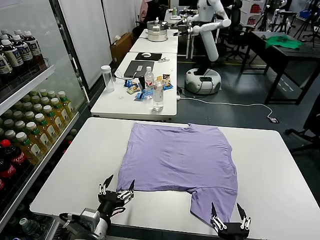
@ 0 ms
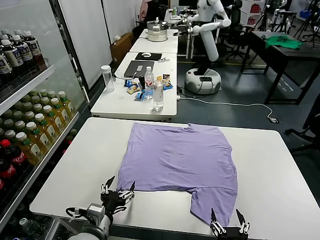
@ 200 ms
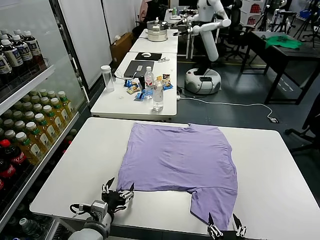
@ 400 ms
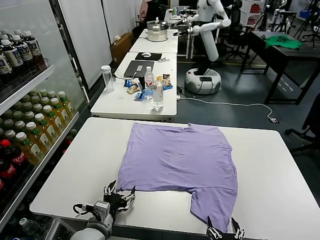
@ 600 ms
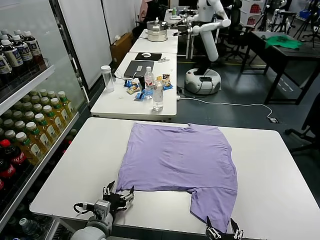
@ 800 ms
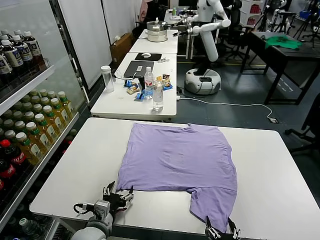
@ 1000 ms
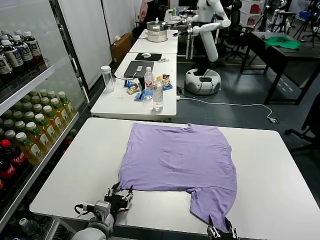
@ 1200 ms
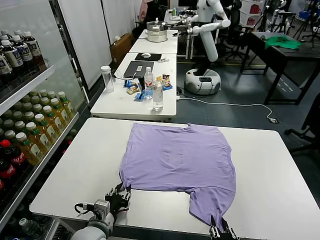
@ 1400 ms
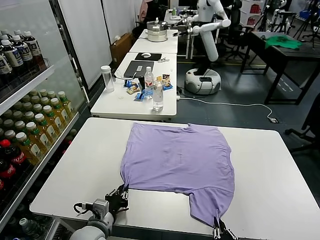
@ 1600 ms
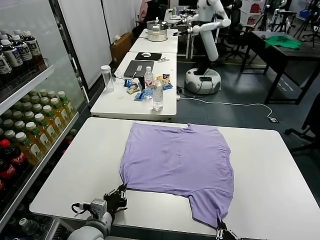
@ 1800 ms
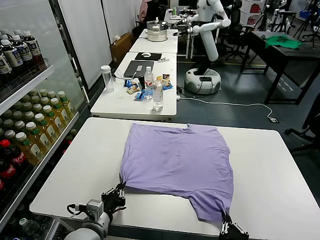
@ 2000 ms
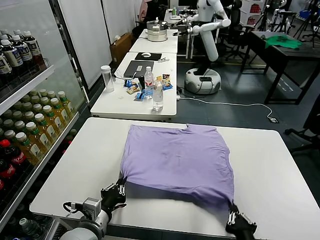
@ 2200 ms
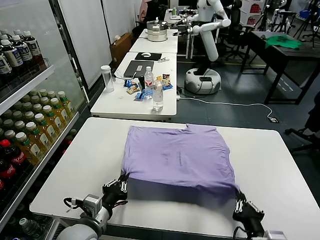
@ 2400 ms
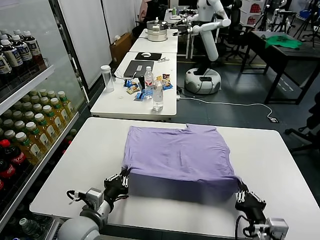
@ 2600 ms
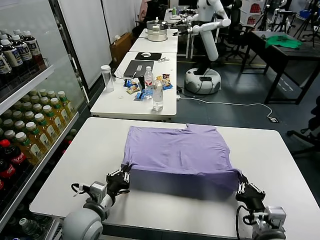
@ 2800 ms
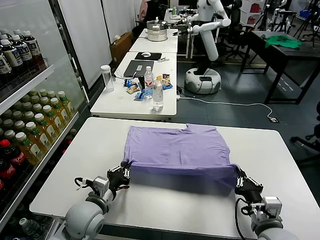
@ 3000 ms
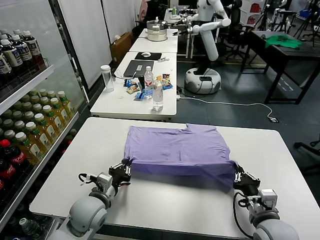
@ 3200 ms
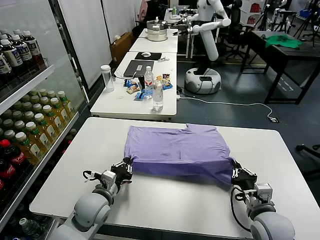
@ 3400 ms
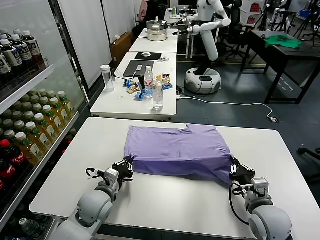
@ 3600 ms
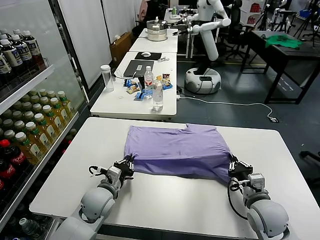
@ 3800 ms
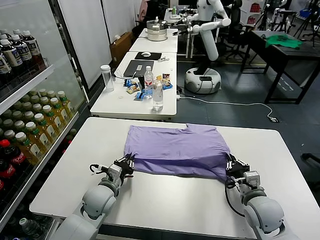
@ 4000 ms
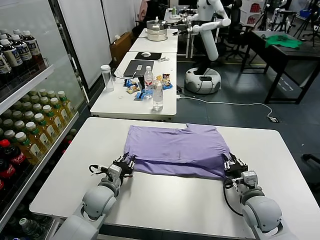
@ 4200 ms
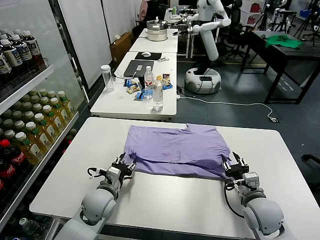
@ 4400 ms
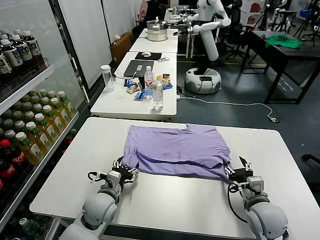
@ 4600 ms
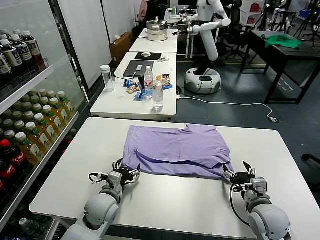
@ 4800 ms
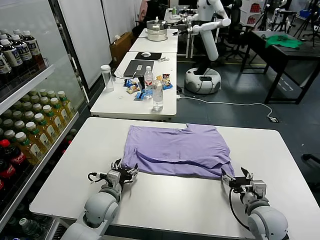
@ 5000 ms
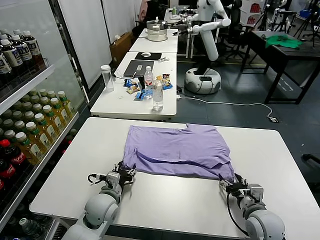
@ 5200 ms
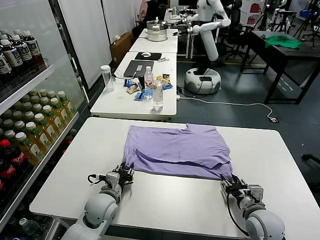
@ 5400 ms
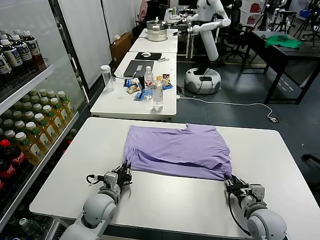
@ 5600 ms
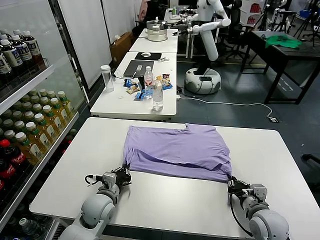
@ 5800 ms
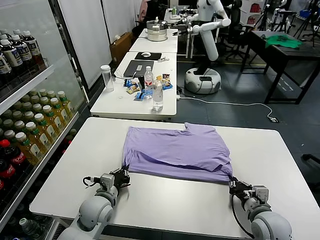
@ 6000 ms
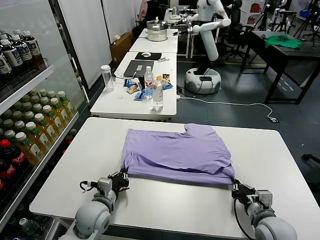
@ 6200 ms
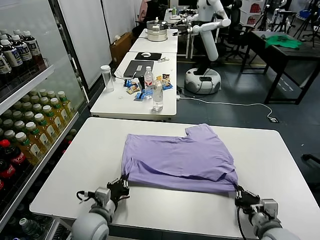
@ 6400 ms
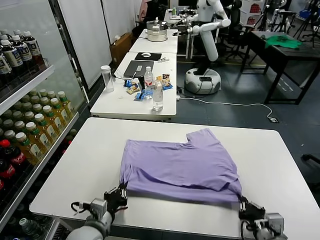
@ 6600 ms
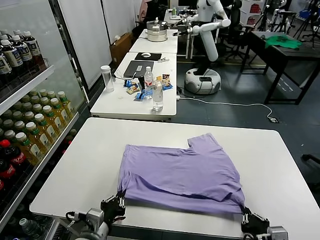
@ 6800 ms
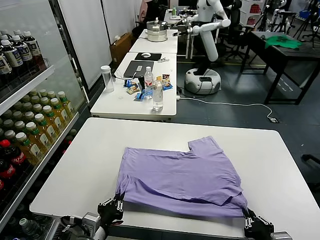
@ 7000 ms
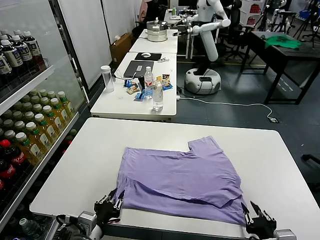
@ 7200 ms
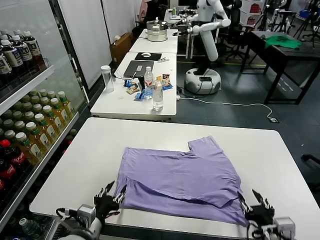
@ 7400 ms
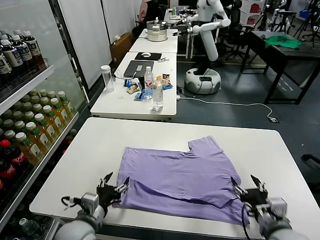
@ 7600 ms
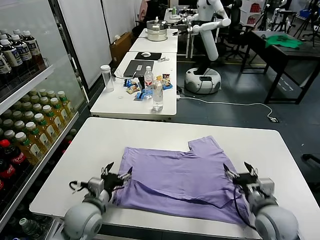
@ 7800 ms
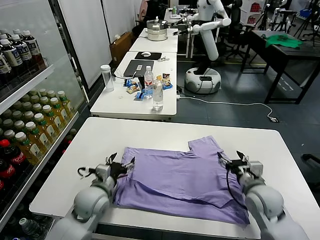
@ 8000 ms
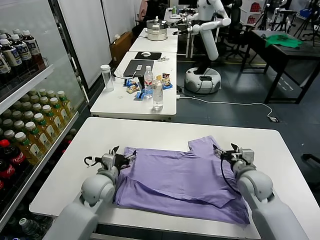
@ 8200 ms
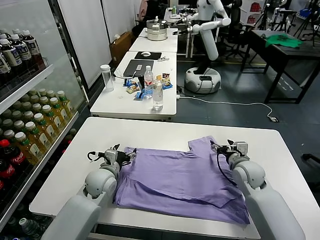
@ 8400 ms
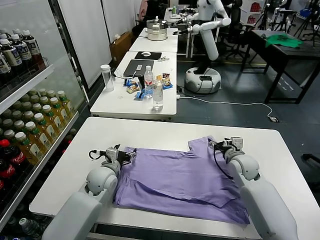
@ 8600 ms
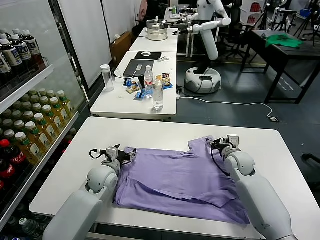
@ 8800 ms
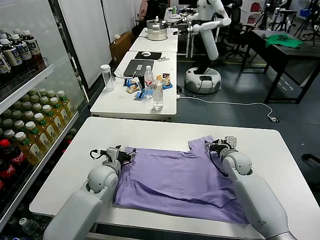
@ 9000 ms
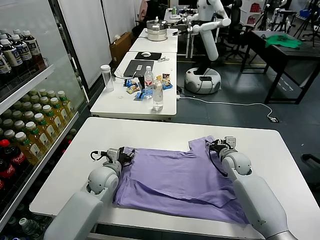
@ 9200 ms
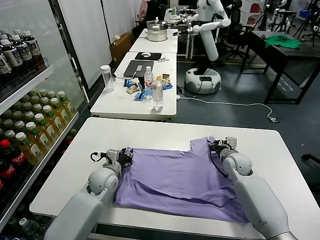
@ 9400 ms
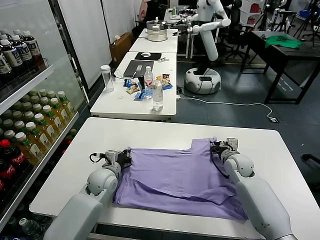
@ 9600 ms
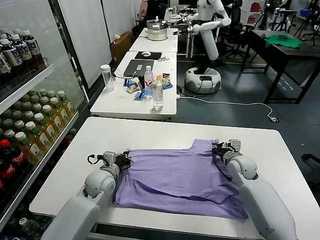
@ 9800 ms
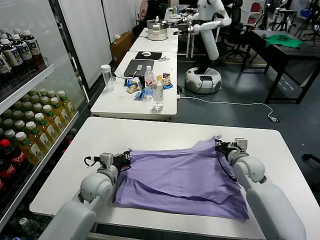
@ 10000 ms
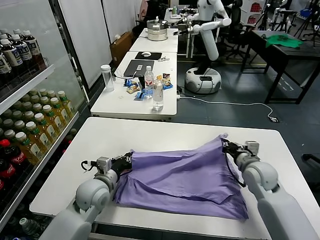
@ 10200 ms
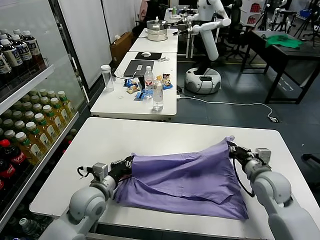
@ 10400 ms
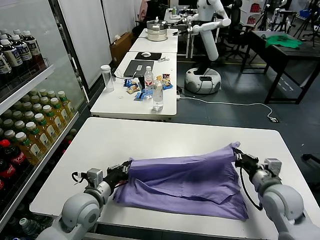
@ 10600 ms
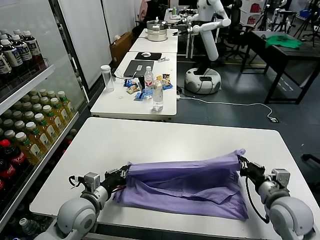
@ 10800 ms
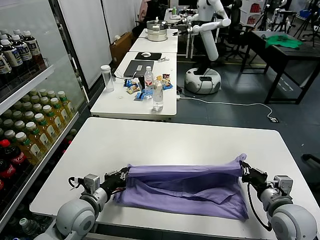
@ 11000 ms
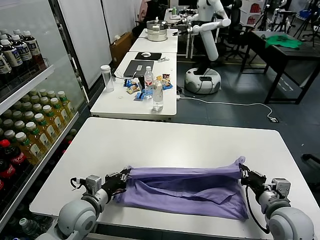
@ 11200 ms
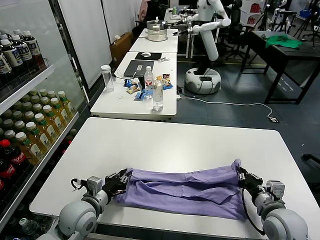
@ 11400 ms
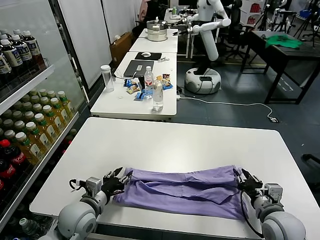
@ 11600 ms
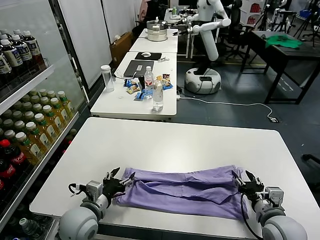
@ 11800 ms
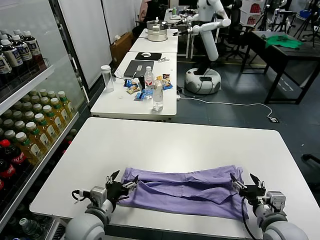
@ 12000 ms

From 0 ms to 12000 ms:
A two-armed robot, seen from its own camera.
Task of the whole recording: fold and organize the clothes.
Step, from 0 ms to 1600 ms: use both grippers simultaneously to clamp the lower edge of the clothing fabric.
Step, from 1800 ms to 4600 ms: use both grippers to drag the lower edge of the fabric forward and fold it over the upper edge.
Step, from 4800 ms to 7400 ms: Drag the clothes downward with both gripper.
Step, from 7600 ms to 9400 ms: use both grippers simultaneously to clamp the upper edge of the clothing fabric.
Step, from 9600 ms to 11800 ms: use both grippers to drag the upper edge of the fabric backward and fold it over the lower edge.
From 1600 ms to 3000 ms: The left gripper is displaced forward by approximately 5 cm, while the right gripper heads forward and to the right, covering approximately 15 cm.
From 3000 ms to 4400 ms: The right gripper shifts some 5 cm forward, and opens its fingers, while the left gripper moves approximately 5 cm, and opens its fingers.
From 4400 ms to 6000 ms: The right gripper closes, while the left gripper closes up.
From 6000 ms to 7600 ms: The right gripper reaches approximately 15 cm backward, then returns, and opens up, while the left gripper travels backward by approximately 10 cm, and opens.
From 7600 ms to 9000 ms: The grippers both shift forward by approximately 20 cm.
From 9000 ms to 10400 ms: The right gripper moves backward and upward, about 15 cm, and closes up, while the left gripper goes about 10 cm backward, and closes its fingers.
From 10400 ms to 12000 ms: The right gripper shifts approximately 10 cm backward, and opens up, while the left gripper travels backward by roughly 5 cm, and opens.

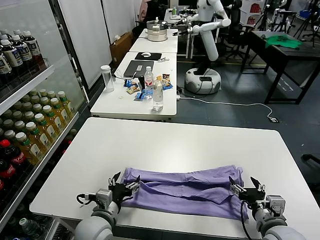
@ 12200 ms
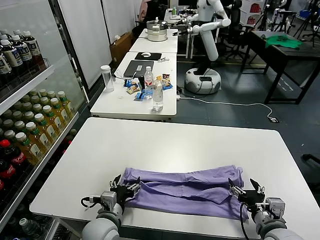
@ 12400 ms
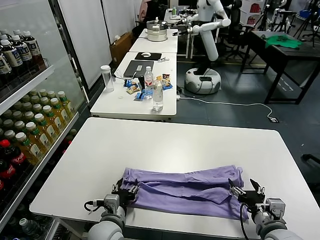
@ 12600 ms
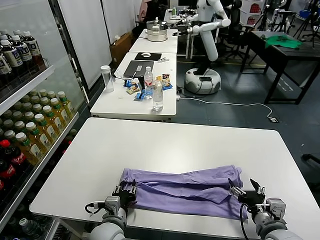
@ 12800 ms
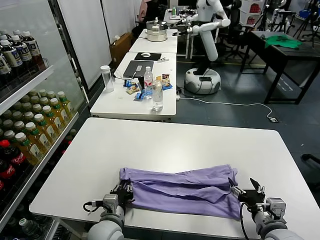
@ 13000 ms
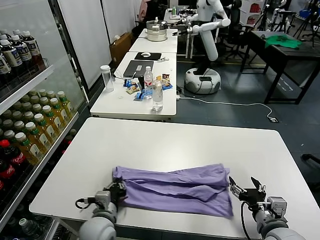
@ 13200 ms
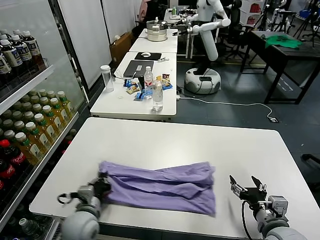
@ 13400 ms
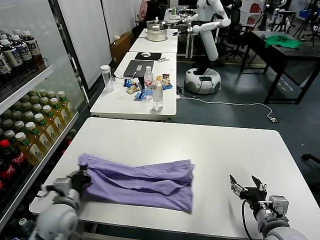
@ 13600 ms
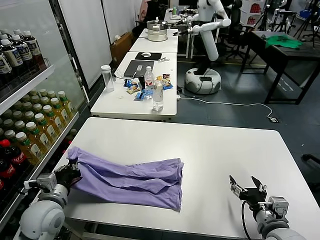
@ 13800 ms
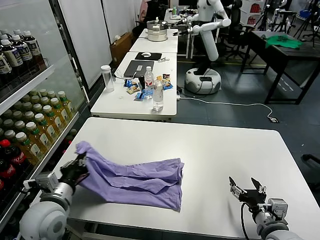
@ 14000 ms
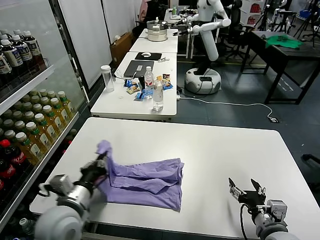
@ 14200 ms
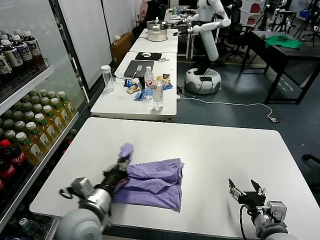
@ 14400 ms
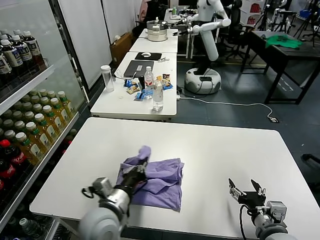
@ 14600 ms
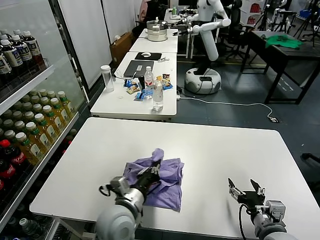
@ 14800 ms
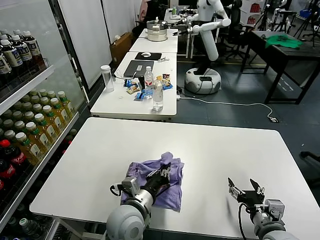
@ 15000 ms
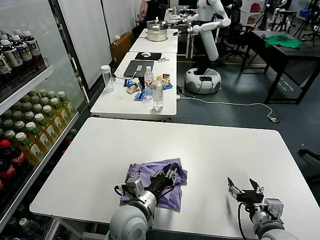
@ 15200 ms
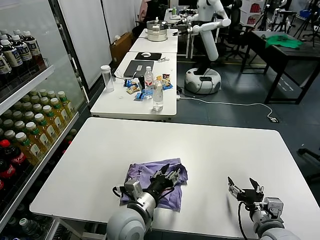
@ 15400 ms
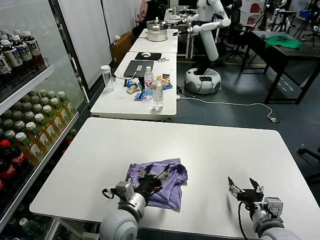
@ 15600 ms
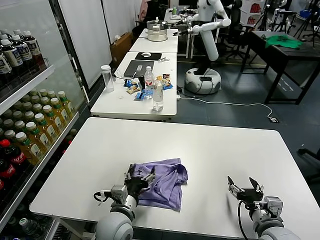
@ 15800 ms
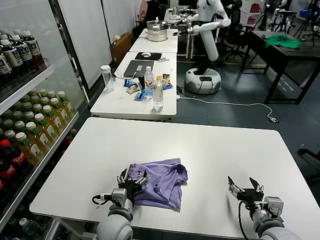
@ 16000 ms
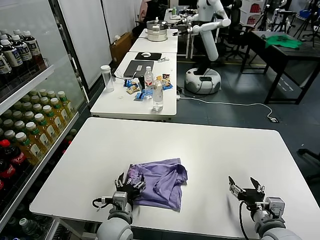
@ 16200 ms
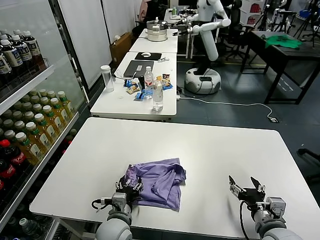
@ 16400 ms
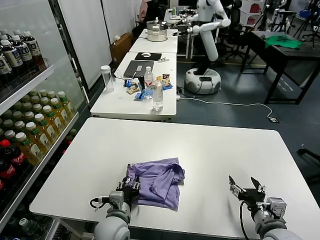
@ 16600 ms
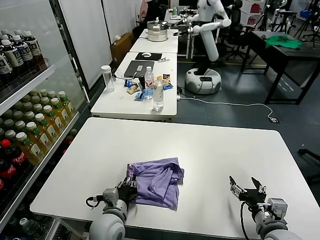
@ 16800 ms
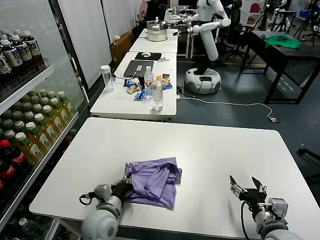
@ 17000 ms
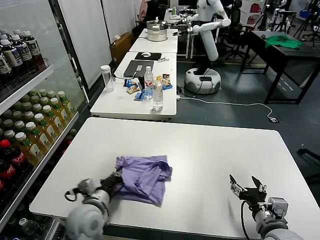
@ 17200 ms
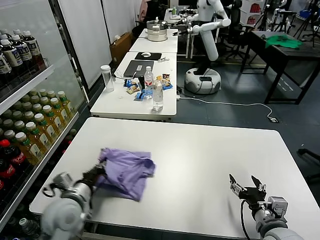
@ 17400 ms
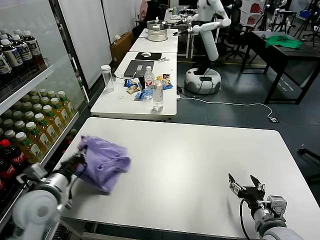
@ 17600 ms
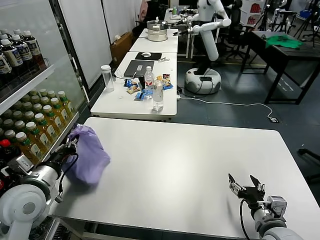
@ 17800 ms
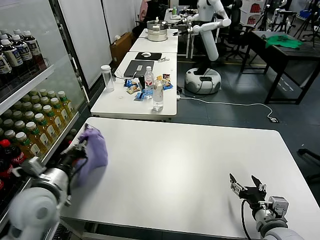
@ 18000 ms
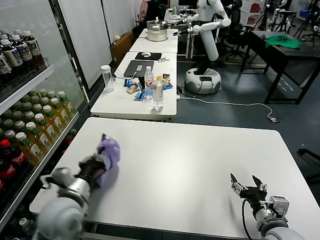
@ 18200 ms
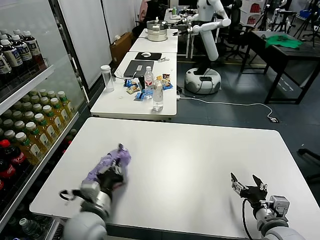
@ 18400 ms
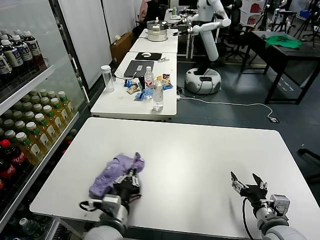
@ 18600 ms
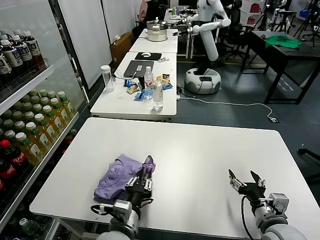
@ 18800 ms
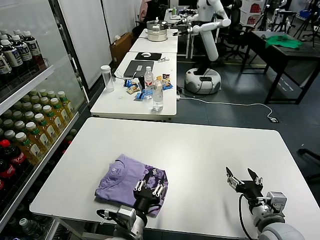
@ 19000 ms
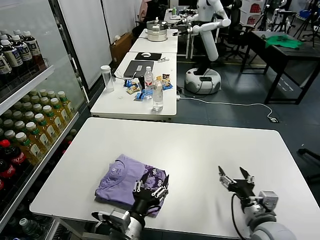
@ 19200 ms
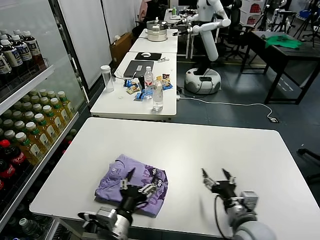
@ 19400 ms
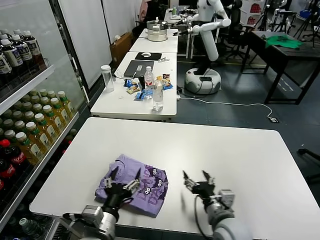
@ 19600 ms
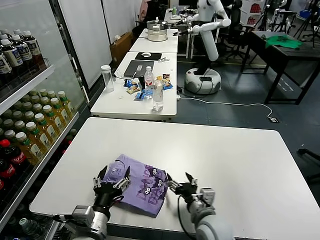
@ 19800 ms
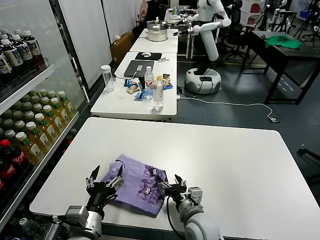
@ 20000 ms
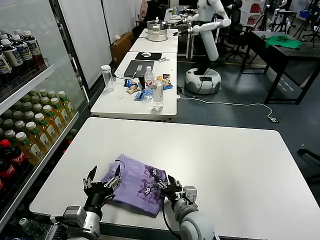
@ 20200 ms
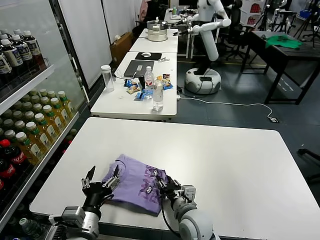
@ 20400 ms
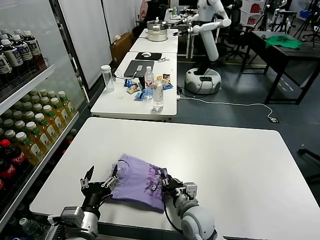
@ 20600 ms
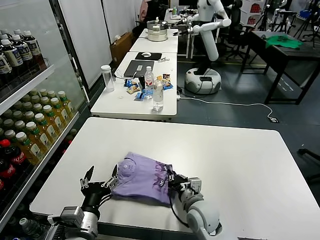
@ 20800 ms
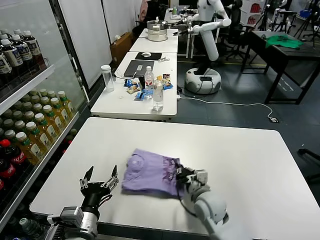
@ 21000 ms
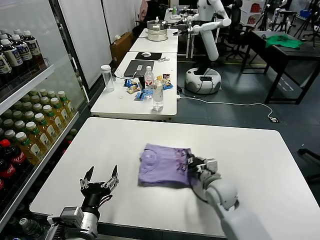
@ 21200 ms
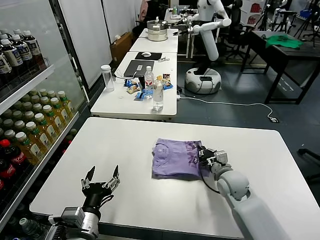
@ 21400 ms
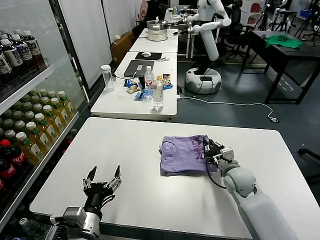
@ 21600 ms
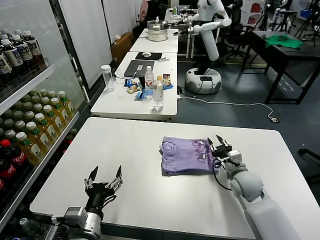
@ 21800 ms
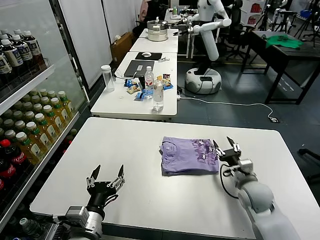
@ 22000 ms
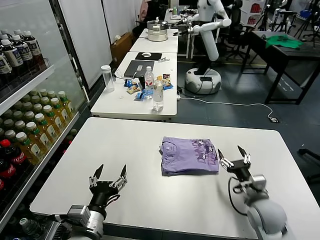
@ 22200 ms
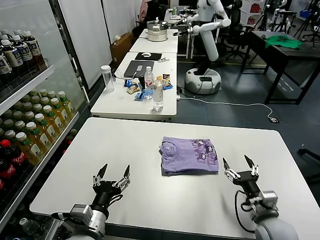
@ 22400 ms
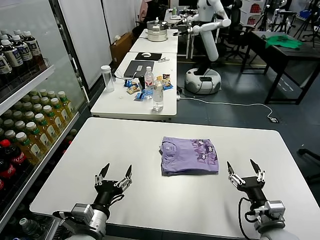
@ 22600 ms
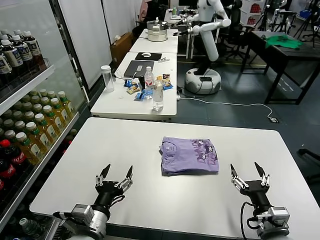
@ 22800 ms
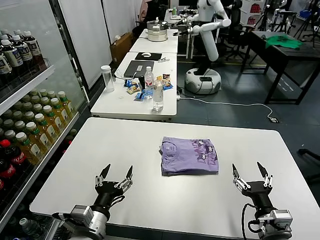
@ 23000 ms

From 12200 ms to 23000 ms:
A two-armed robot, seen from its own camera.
Task of the whole recording: fold and organize the clothes.
Step, from 12200 ms to 13200 ms: use the left gripper to clamp the left edge of the fabric.
Step, from 13400 ms to 15200 ms: use the left gripper to drag the left edge of the fabric to the left and folds it over the right edge.
Step, from 15400 ms to 19000 ms: Flip the folded clothes over with left gripper.
Step, from 19400 ms to 22000 ms: Drag the clothes to the center of the table.
From 12200 ms to 13800 ms: The left gripper heads to the left, covering roughly 15 cm, and closes up.
From 13800 ms to 15200 ms: The left gripper travels to the right by some 25 cm.
From 15200 ms to 16800 ms: The left gripper shifts roughly 10 cm to the left and downward, and opens, then closes once more.
From 16800 ms to 18400 ms: The left gripper goes roughly 10 cm upward, and goes to the left and returns, about 20 cm each way.
From 18400 ms to 20000 ms: The left gripper is displaced backward by about 5 cm, reaches about 10 cm to the right, then returns, and opens its fingers. The right gripper shifts approximately 20 cm to the left.
From 20000 ms to 21400 ms: The right gripper travels forward and to the right by roughly 15 cm, and closes up.
From 21400 ms to 23000 ms: The right gripper heads backward, covering approximately 20 cm, and opens up.
